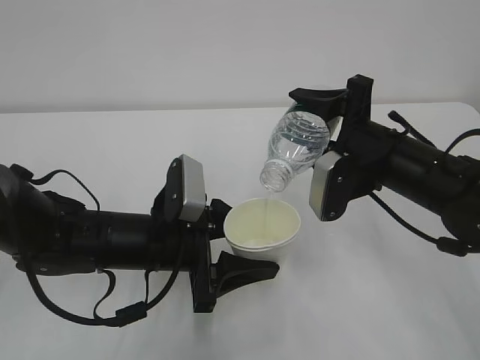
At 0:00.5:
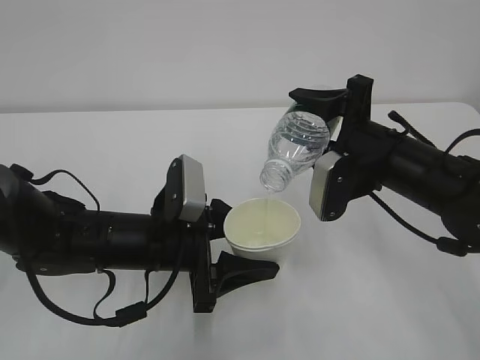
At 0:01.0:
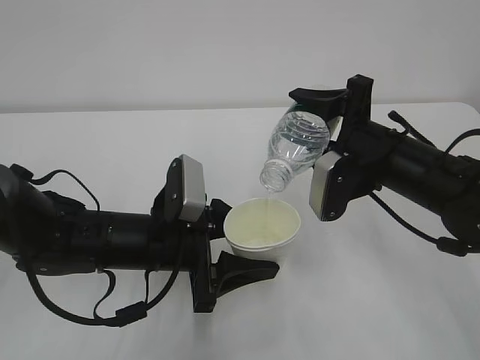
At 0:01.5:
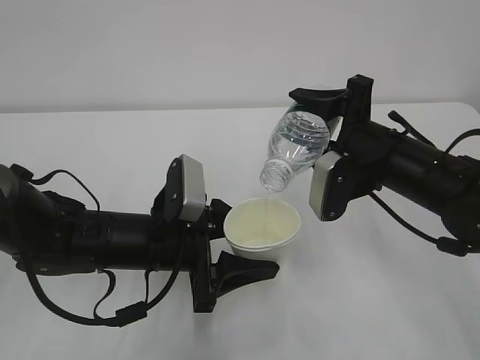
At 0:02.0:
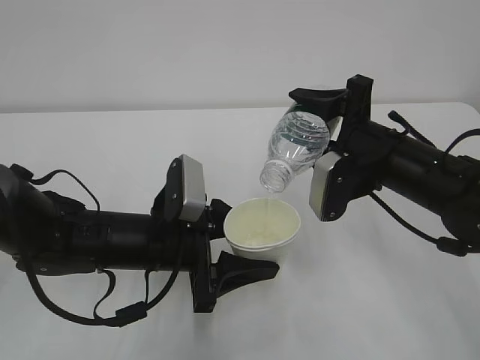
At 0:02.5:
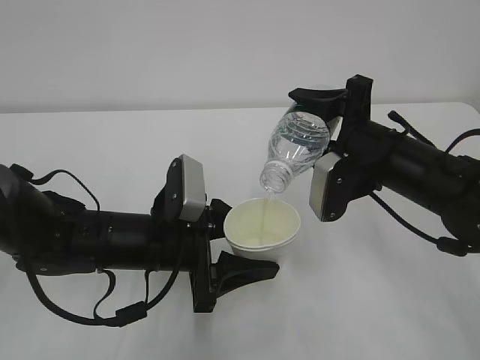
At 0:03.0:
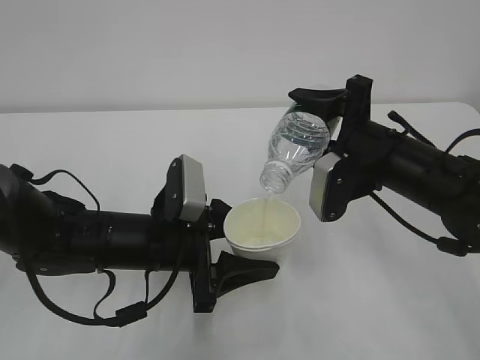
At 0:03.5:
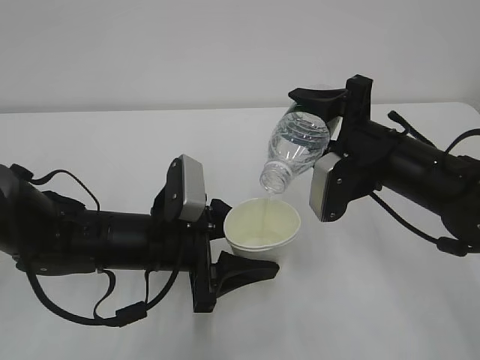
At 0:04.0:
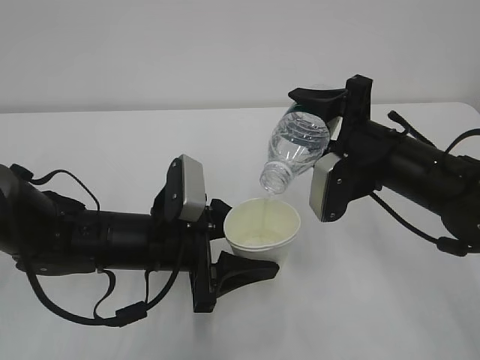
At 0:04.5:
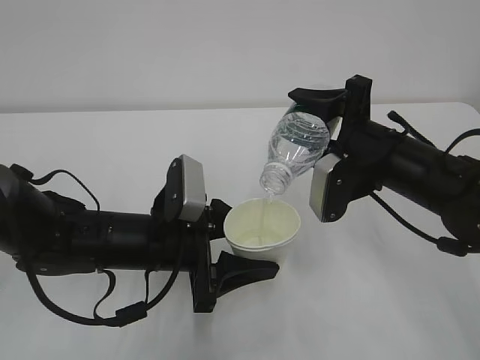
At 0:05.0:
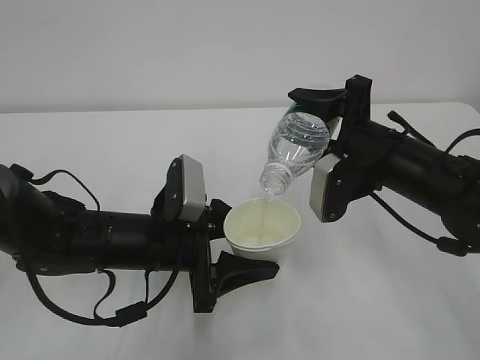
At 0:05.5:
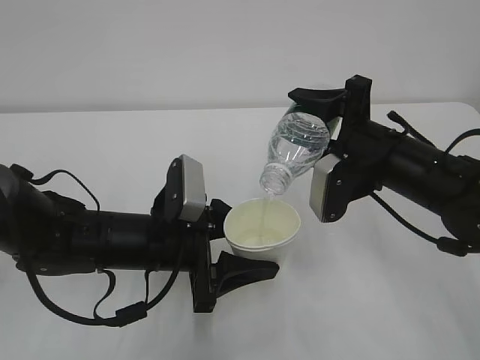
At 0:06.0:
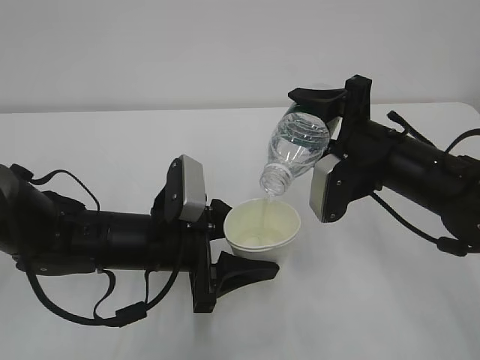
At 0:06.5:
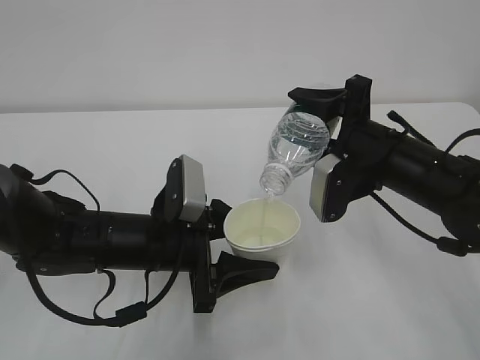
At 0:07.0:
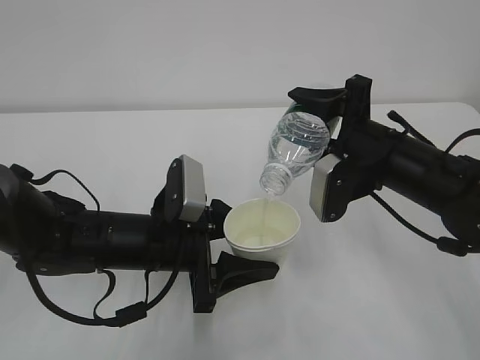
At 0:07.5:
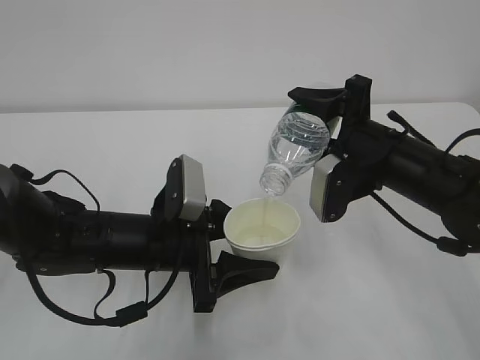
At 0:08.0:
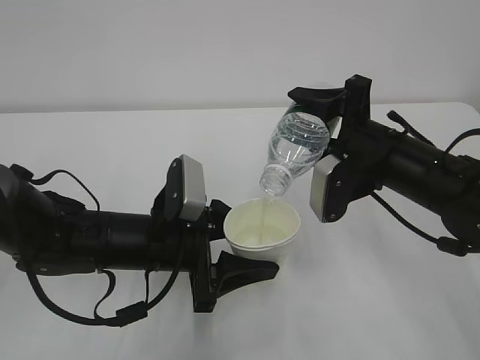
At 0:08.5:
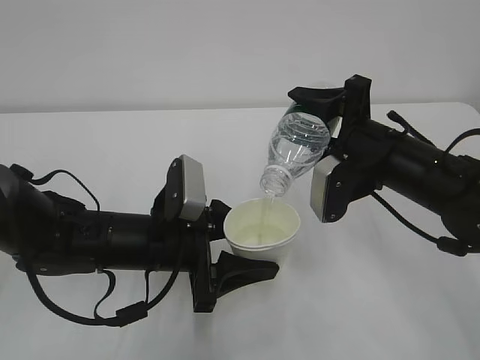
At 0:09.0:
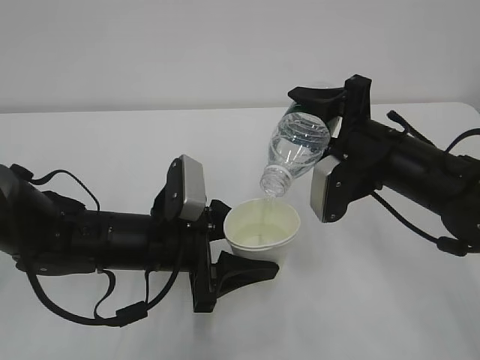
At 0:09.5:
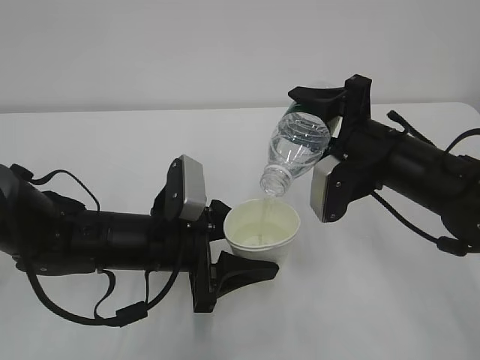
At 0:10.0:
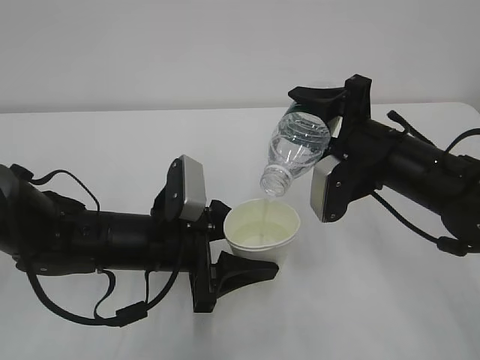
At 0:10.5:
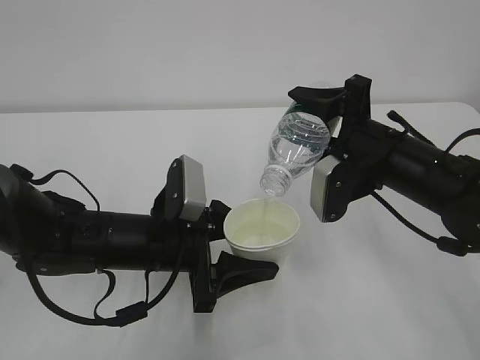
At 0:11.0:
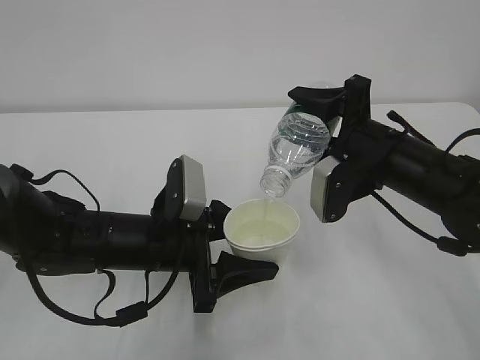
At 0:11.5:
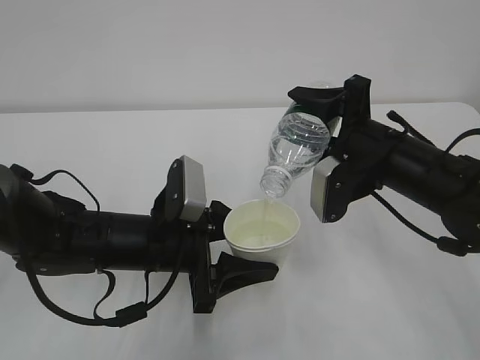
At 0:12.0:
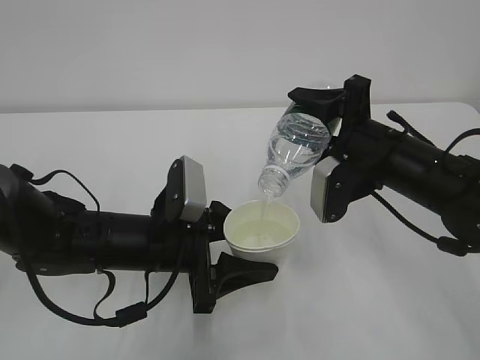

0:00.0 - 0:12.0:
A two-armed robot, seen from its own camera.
0:00.0 - 0:10.0: Both grippers stay put.
0:10.0 - 0:12.0: Neither gripper changes place.

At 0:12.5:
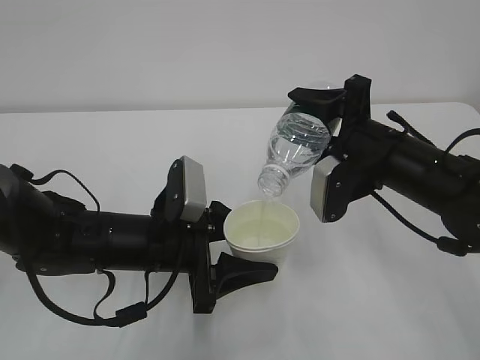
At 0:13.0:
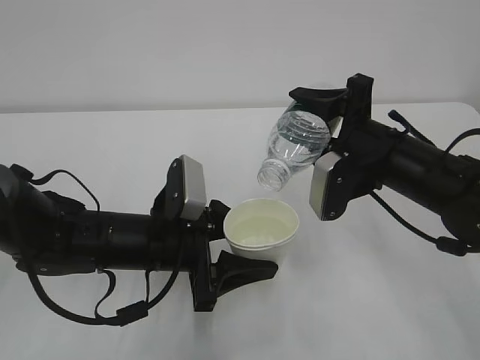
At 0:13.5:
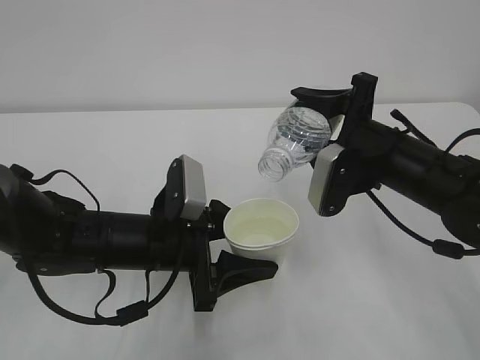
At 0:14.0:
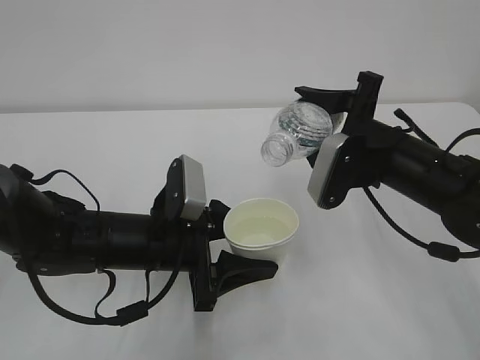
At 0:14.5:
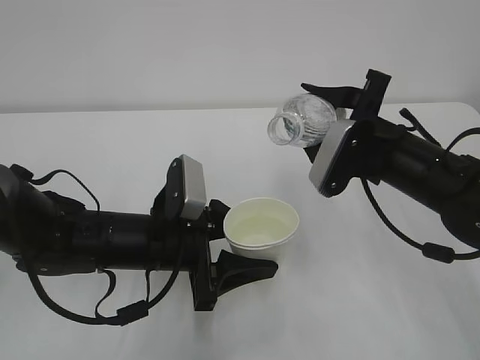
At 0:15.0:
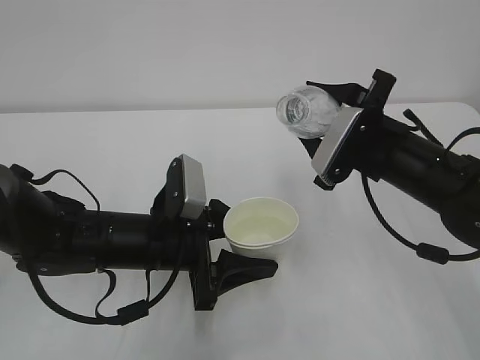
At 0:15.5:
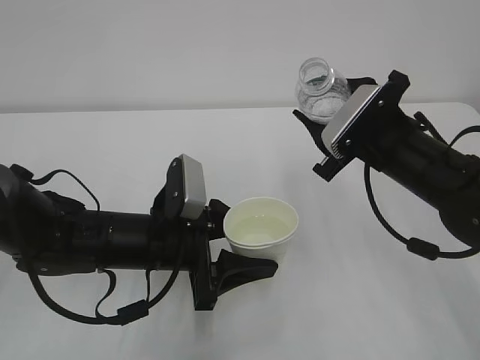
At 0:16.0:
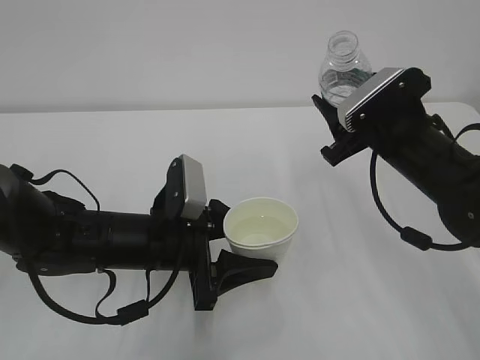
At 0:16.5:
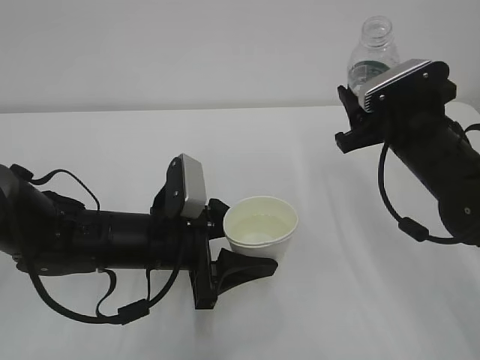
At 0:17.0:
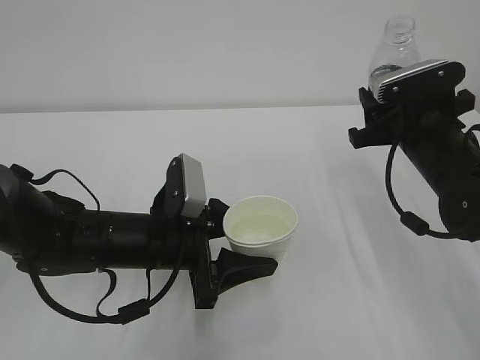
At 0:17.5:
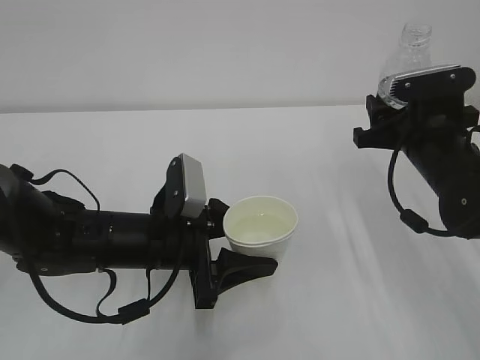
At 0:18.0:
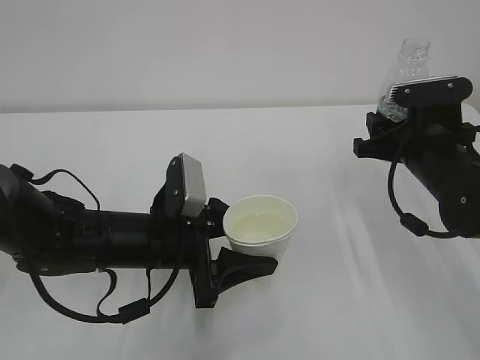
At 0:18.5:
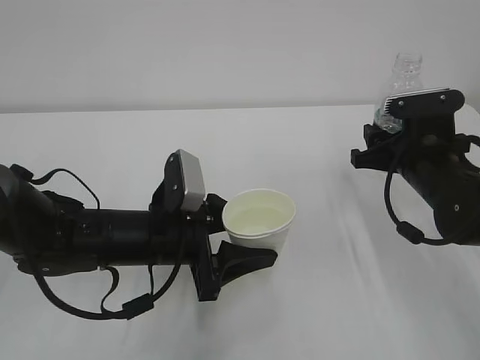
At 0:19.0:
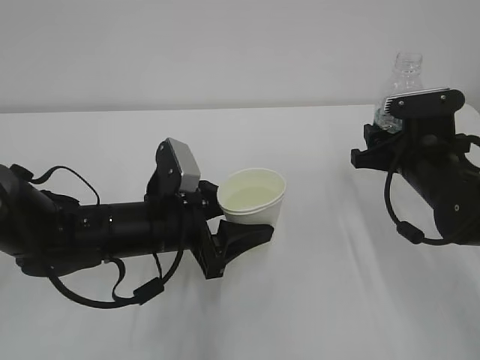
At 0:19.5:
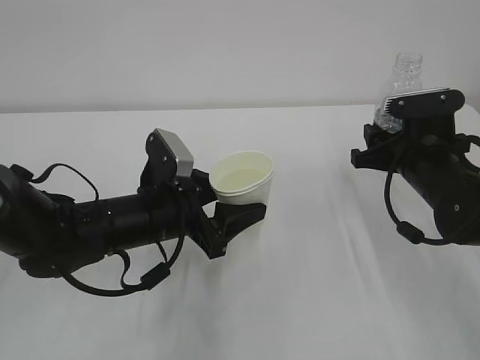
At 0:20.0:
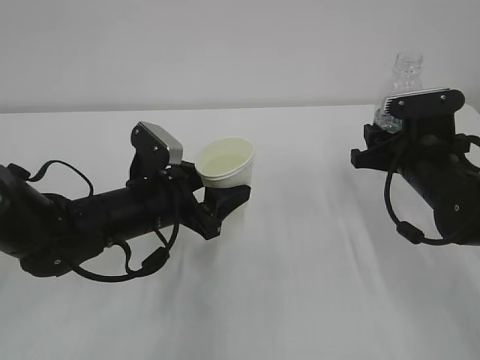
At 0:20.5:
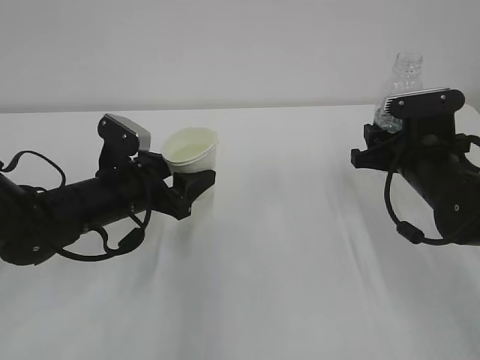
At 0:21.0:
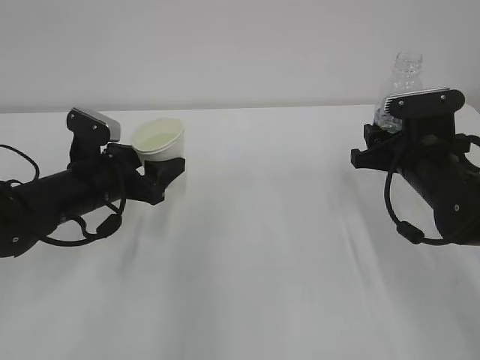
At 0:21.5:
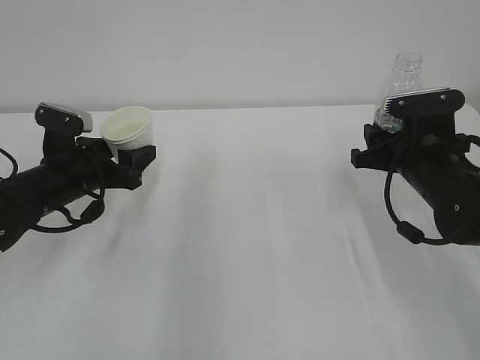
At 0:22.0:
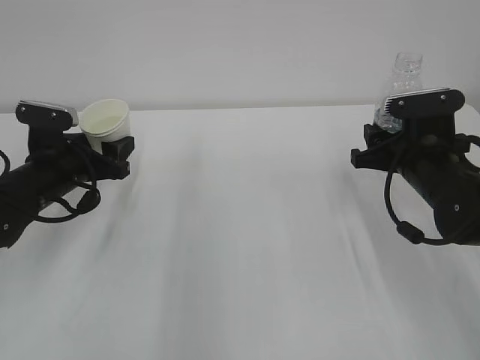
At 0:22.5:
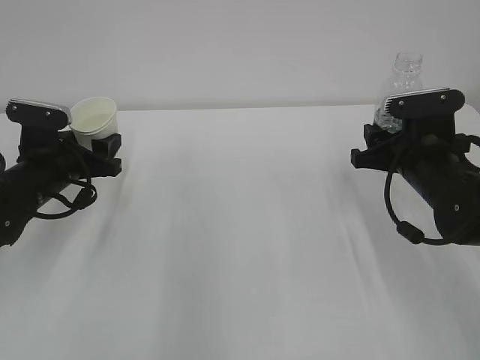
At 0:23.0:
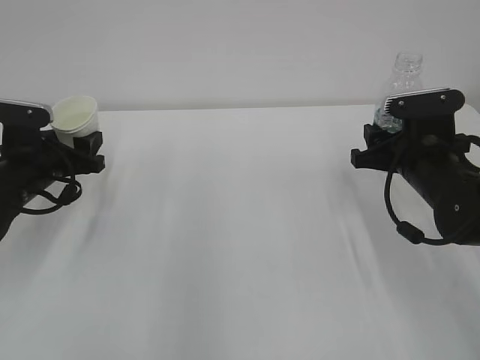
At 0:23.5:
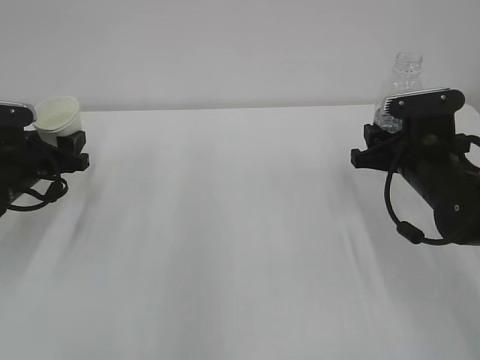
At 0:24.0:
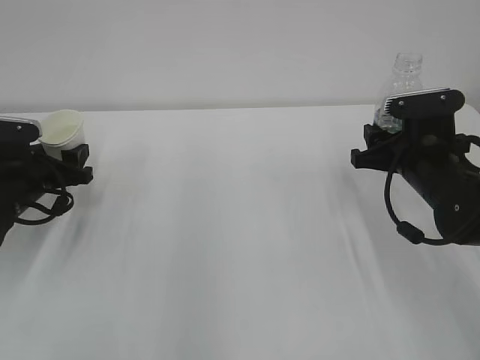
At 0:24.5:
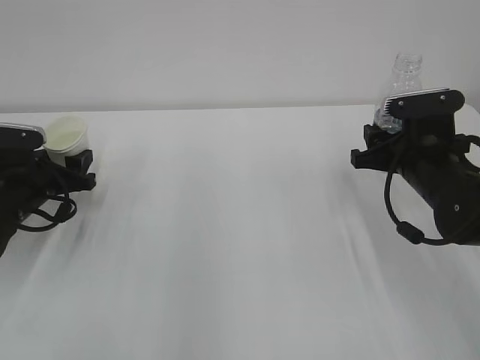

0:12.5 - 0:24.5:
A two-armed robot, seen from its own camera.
0:18.5 - 0:20.5: The left gripper is displaced forward and to the left by about 10 cm.
0:20.5 - 0:22.5: The left gripper shifts some 10 cm to the left.
0:22.5 - 0:24.5: The left gripper shifts by roughly 5 cm.

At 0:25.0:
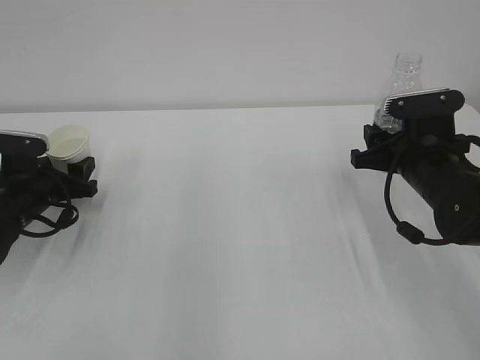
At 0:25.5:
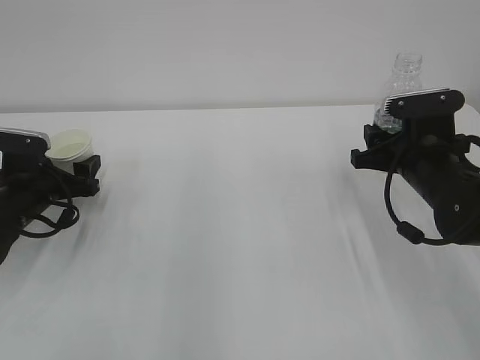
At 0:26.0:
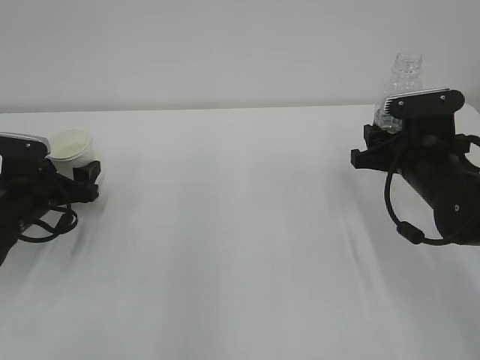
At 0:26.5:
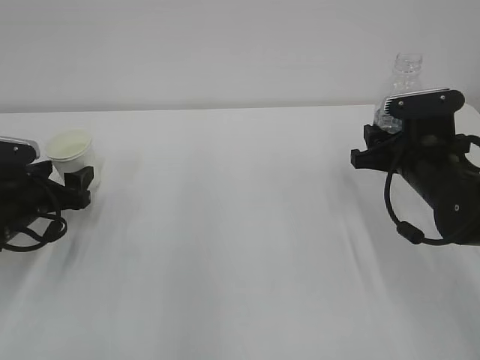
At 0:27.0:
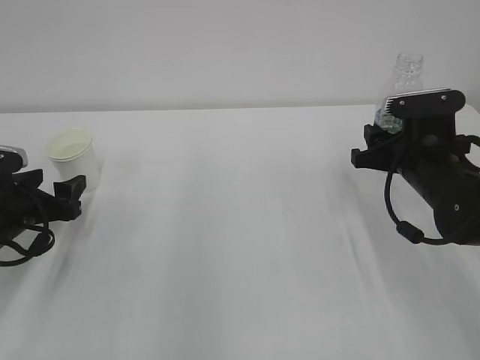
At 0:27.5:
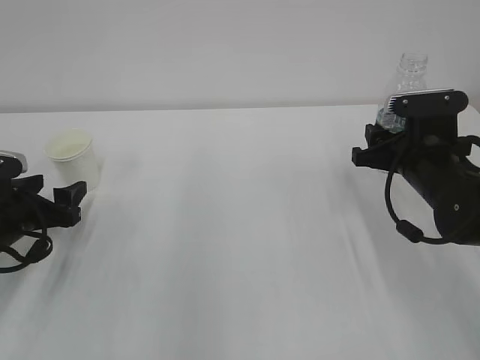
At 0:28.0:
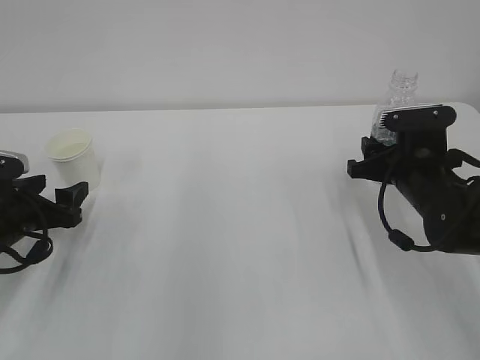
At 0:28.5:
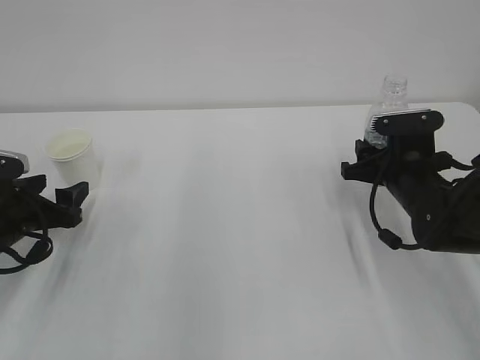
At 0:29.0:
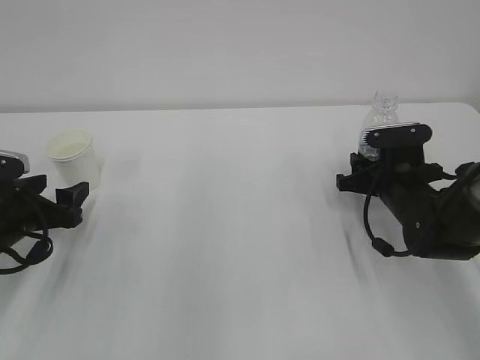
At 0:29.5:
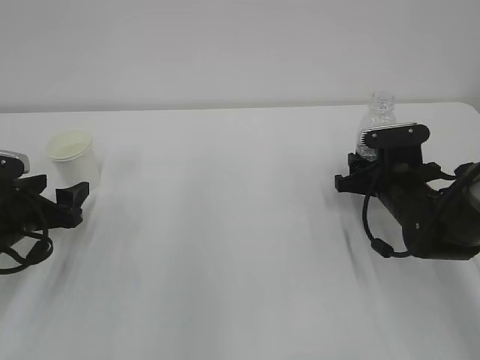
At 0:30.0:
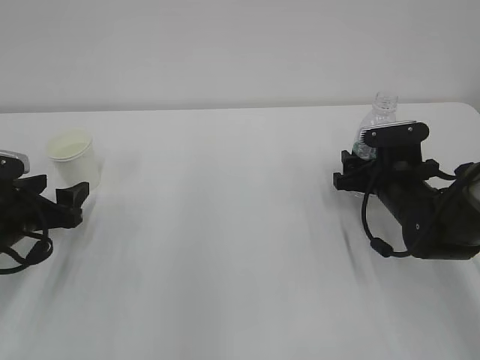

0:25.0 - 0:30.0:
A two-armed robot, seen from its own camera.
0:25.0 - 0:27.5: The left gripper goes about 5 cm backward, and opens up.
0:27.5 - 0:30.0: The right gripper travels downward by some 5 cm, and opens its fingers.
